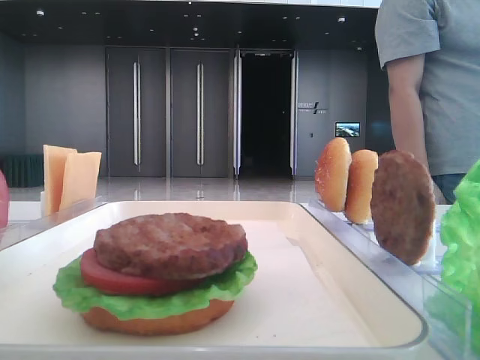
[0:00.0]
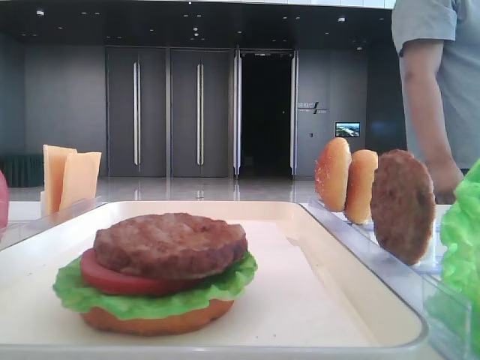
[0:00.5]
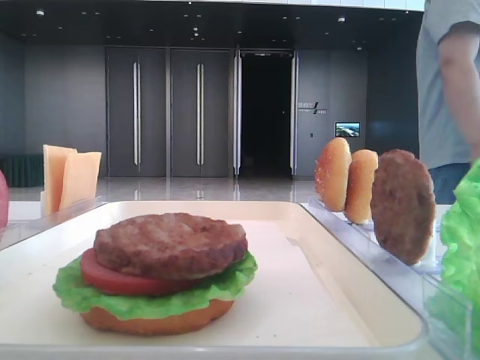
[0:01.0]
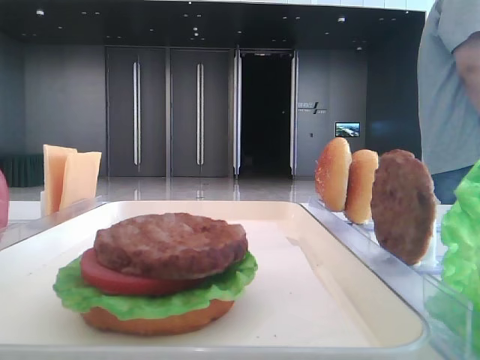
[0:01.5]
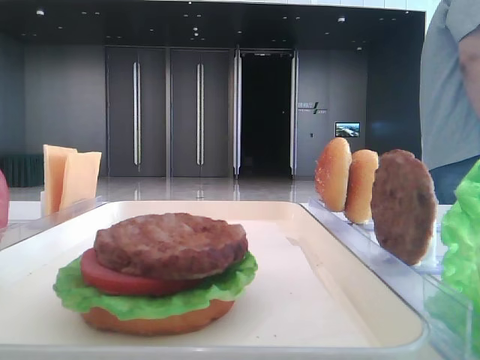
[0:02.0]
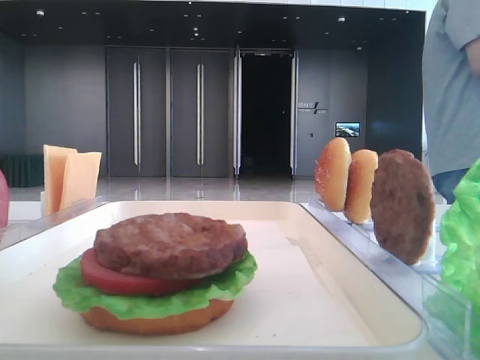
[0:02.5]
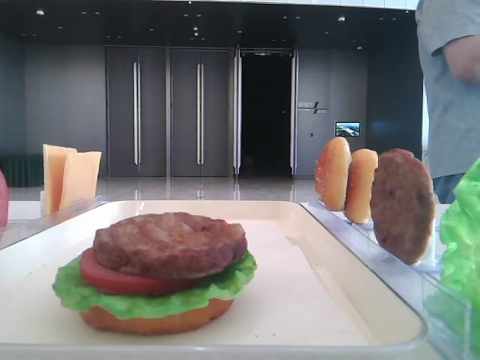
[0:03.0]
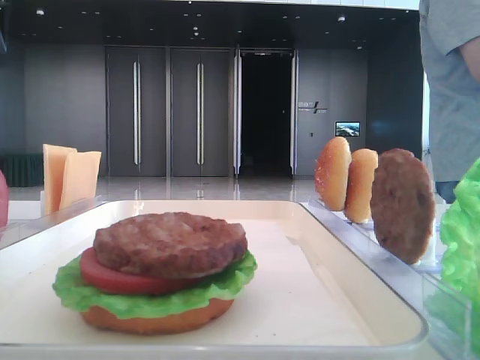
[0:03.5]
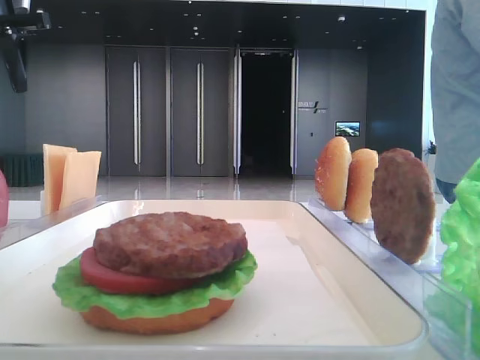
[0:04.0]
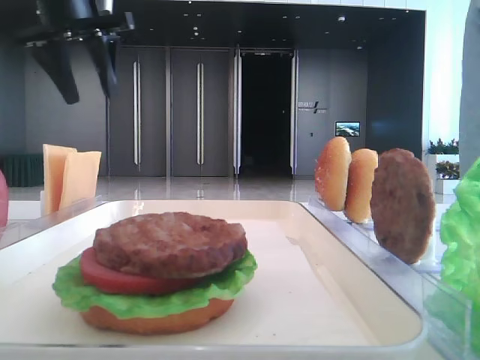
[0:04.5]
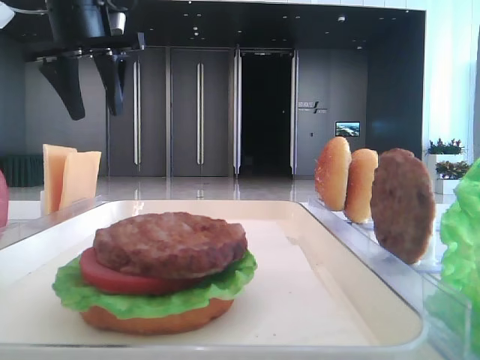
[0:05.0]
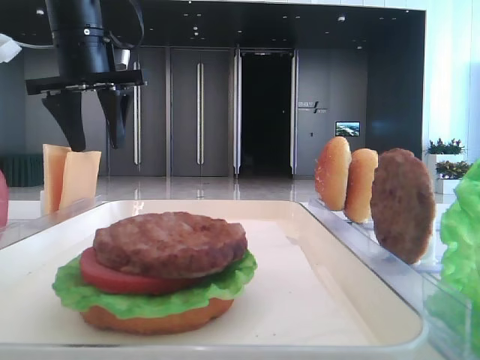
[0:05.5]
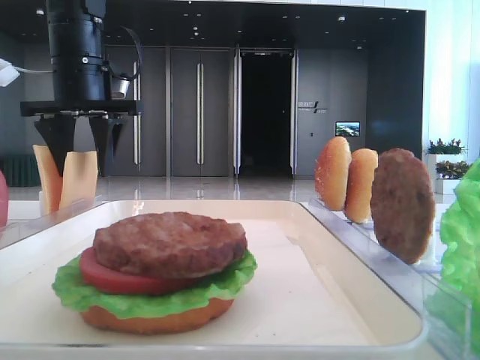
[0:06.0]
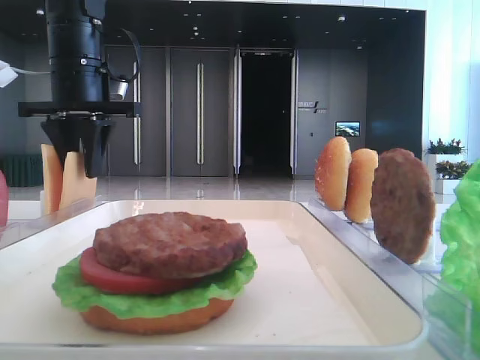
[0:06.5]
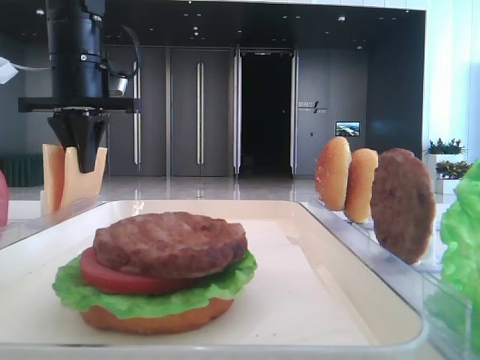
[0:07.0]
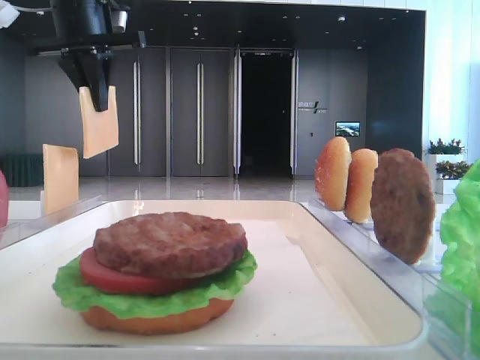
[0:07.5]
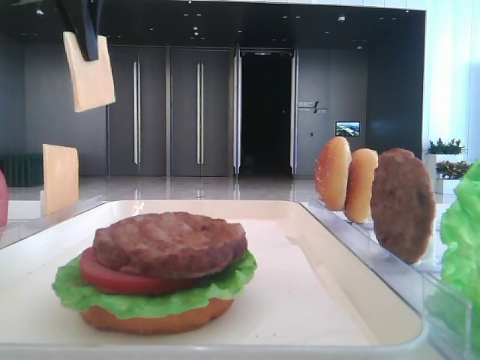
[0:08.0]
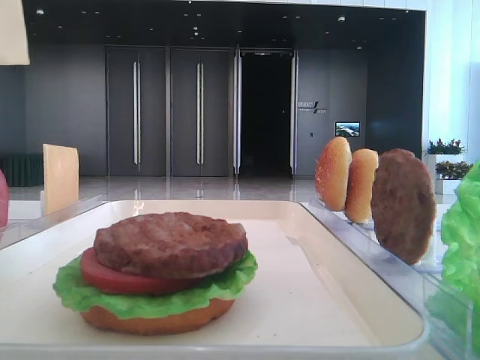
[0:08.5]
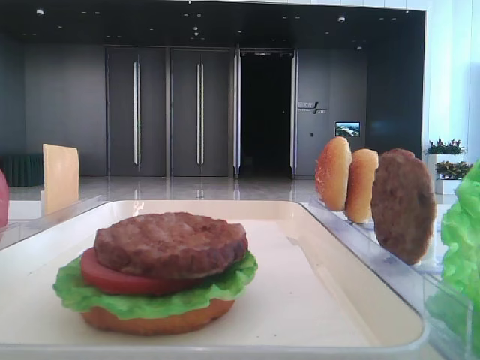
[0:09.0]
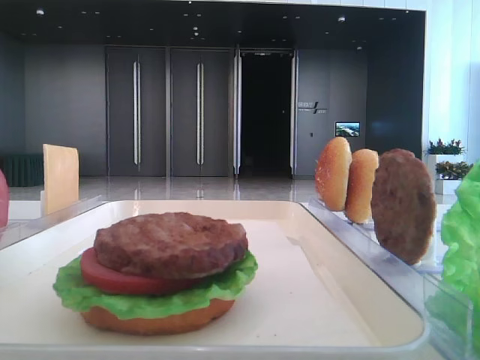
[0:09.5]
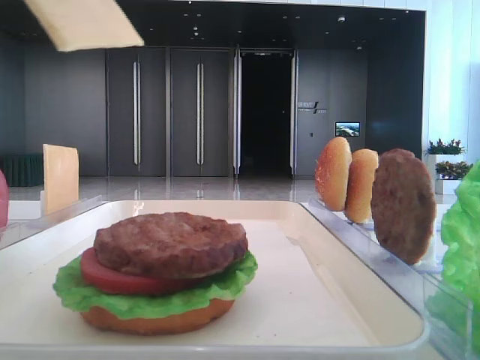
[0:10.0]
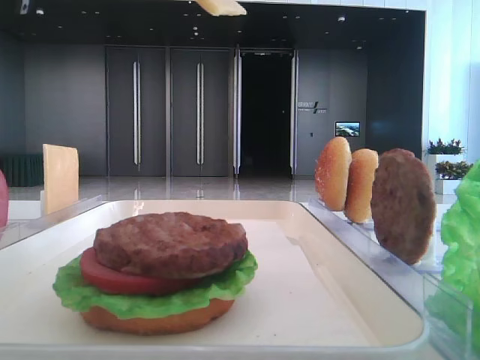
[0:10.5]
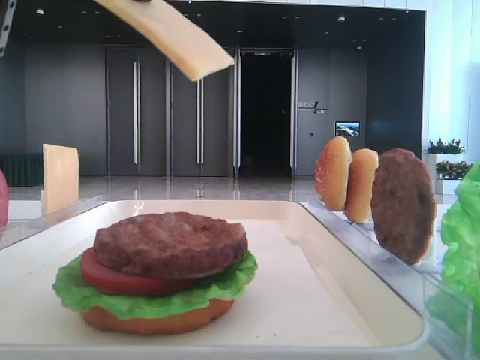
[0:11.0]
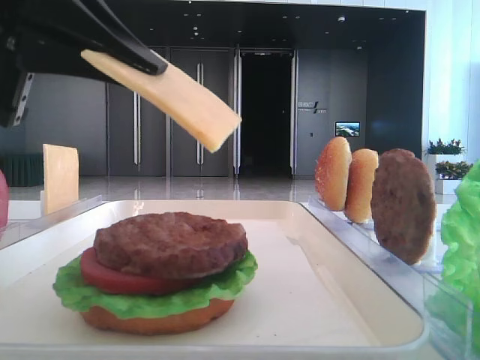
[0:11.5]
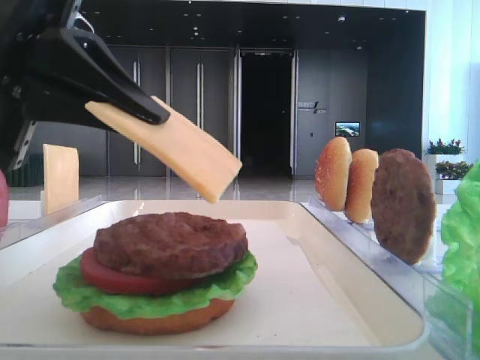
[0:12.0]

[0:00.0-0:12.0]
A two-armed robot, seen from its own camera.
Step, 0:00.0 to 0:06.5: Pick up the cheese slice with the left hand.
0:02.0 to 0:04.0: The left gripper shifts roughly 40 cm forward.
0:04.0 to 0:06.0: The left gripper goes about 15 cm to the right and downward.
0:06.0 to 0:08.0: The left gripper goes some 10 cm upward, and closes up.
0:08.0 to 0:10.0: The left gripper travels backward by about 20 cm.
0:10.0 to 0:12.0: The left gripper heads downward, covering some 10 cm.

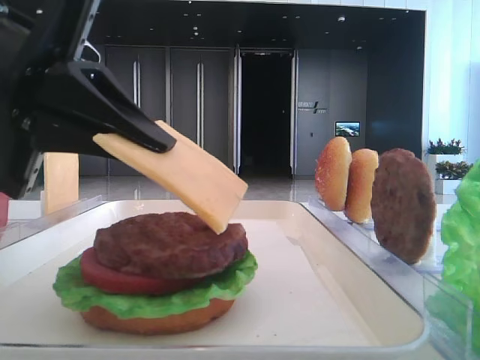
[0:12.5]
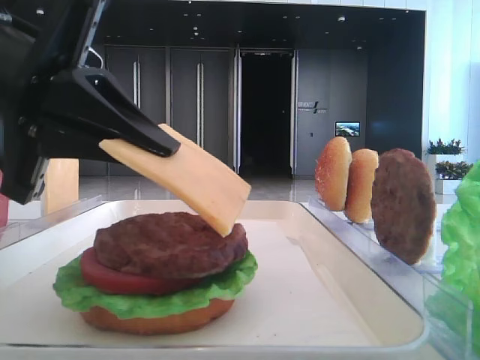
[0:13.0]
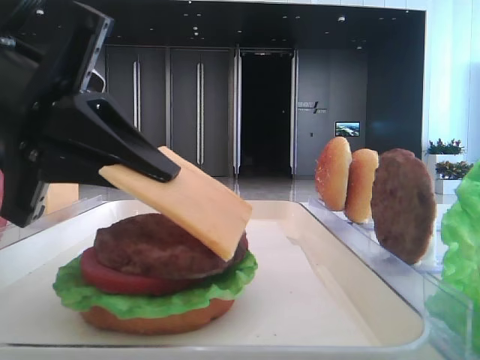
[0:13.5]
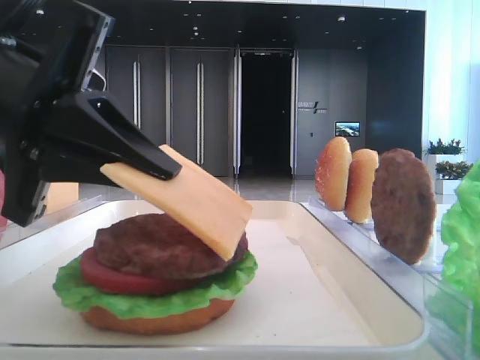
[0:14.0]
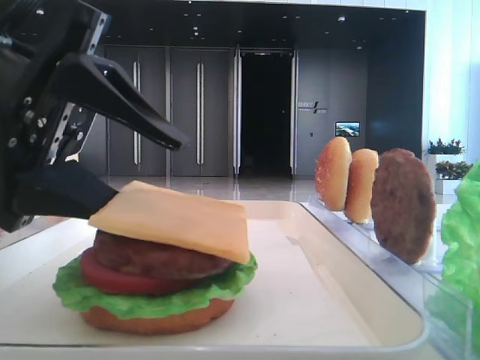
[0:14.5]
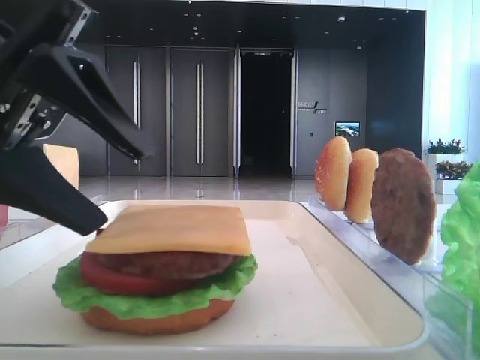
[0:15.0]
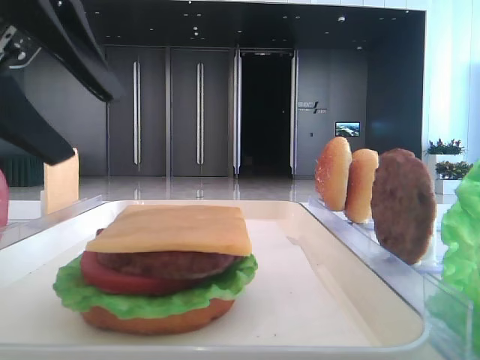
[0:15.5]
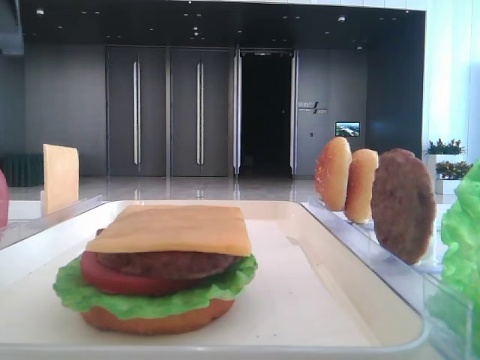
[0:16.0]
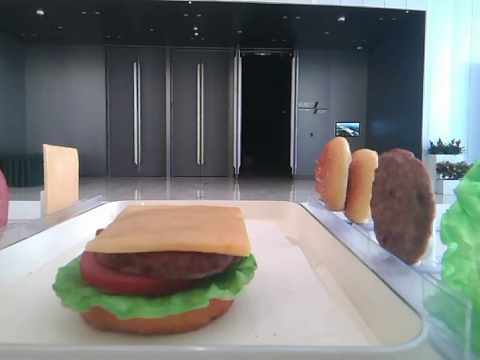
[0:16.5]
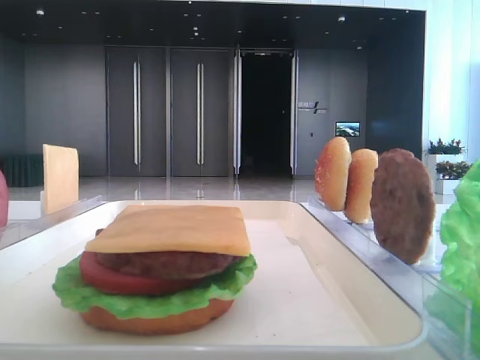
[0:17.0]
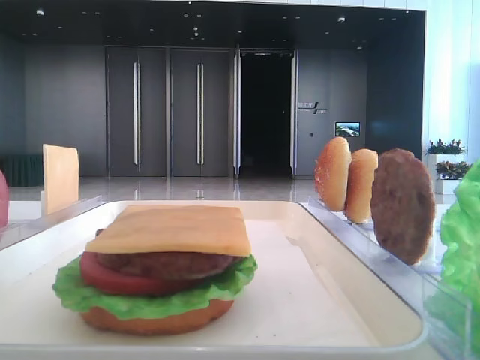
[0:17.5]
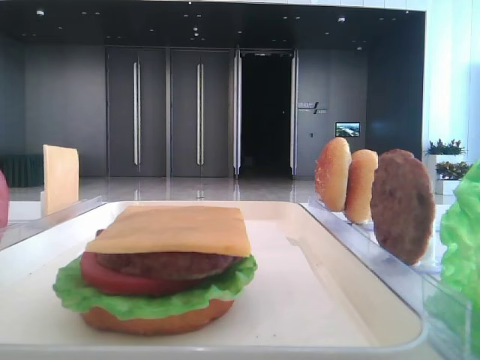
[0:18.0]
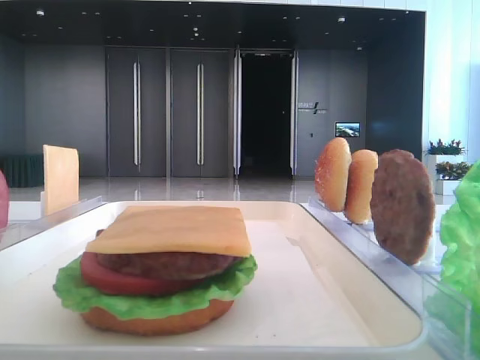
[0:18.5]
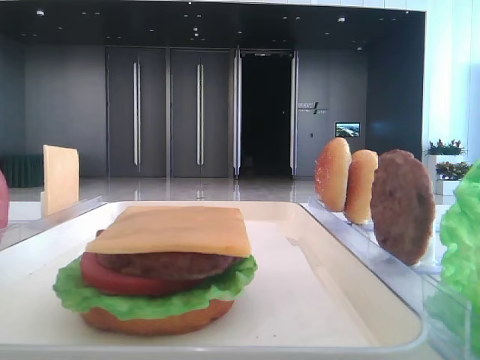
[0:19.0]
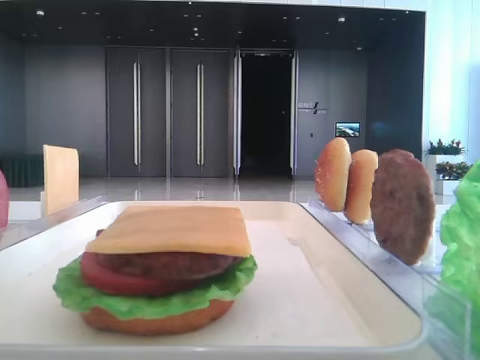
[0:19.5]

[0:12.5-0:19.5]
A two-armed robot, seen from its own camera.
Step, 0:12.5 to 0:14.5: Place the cheese slice on the patty with the left hand.
0:12.5 to 0:14.5: The left gripper opens.
0:14.5 to 0:16.0: The left gripper shifts roughly 15 cm upward.

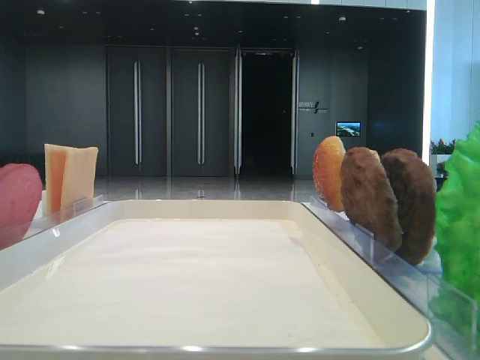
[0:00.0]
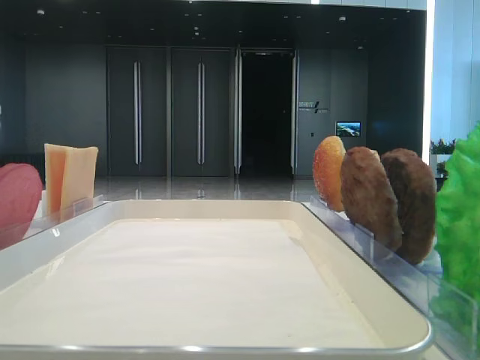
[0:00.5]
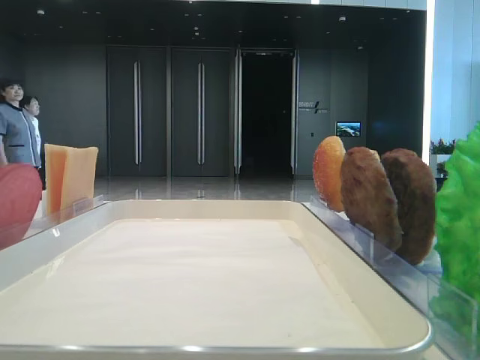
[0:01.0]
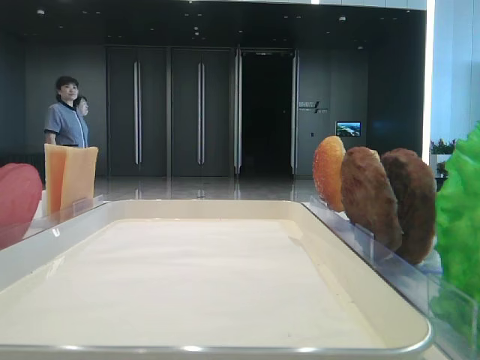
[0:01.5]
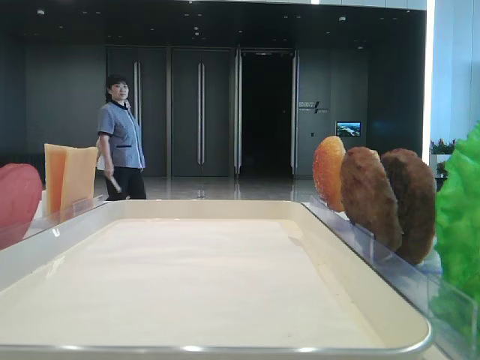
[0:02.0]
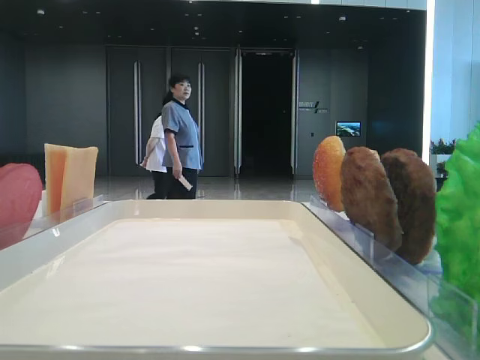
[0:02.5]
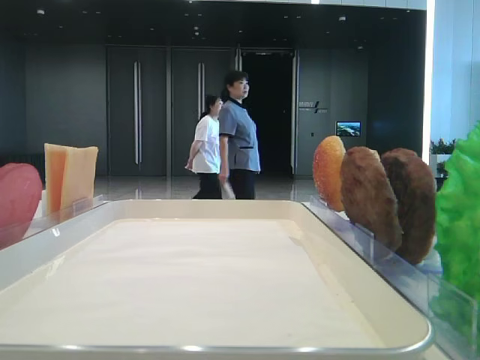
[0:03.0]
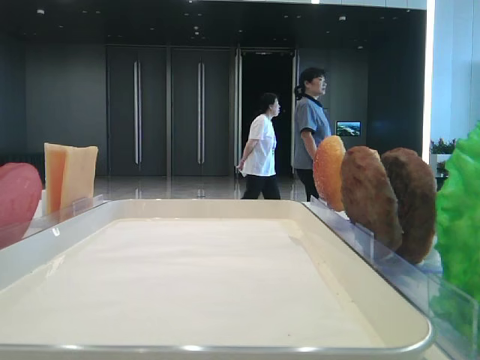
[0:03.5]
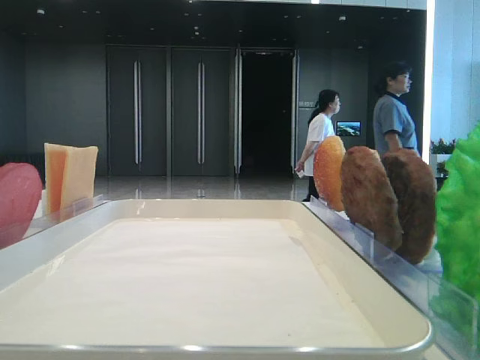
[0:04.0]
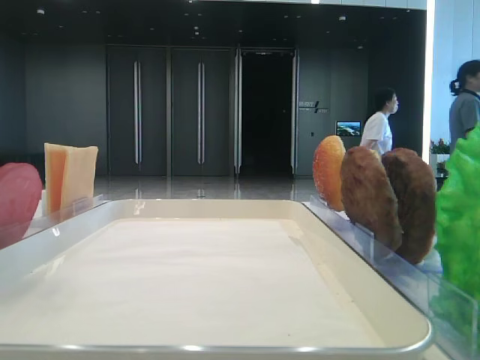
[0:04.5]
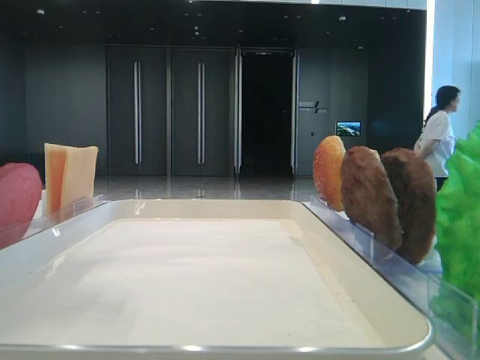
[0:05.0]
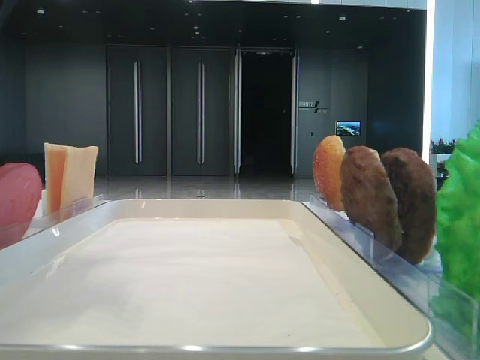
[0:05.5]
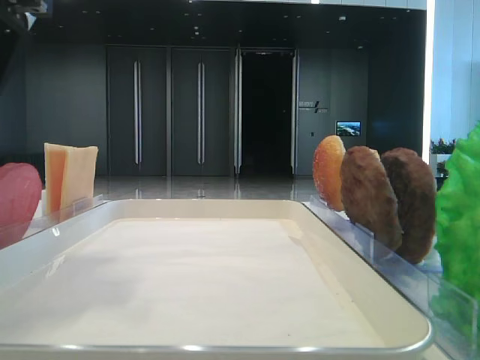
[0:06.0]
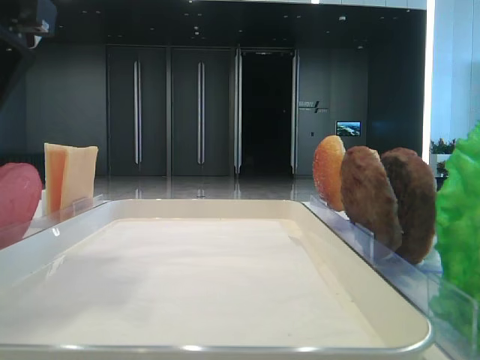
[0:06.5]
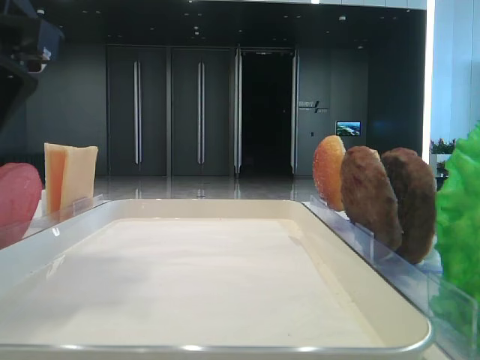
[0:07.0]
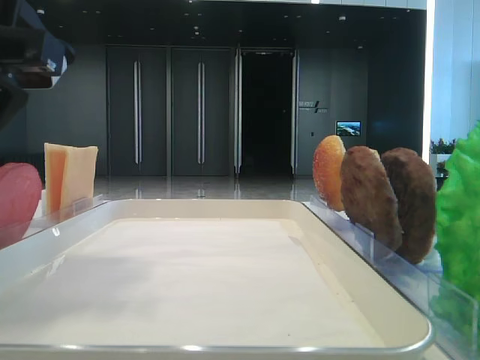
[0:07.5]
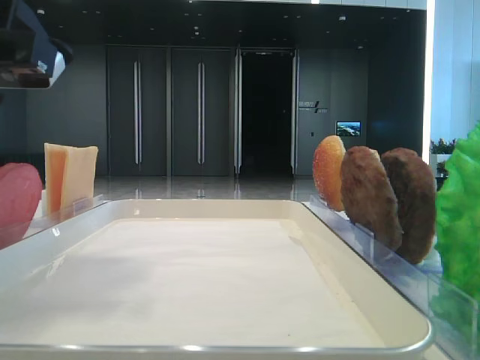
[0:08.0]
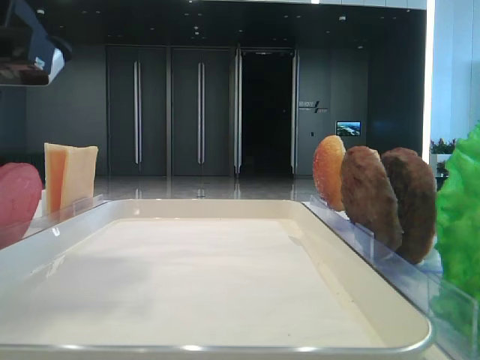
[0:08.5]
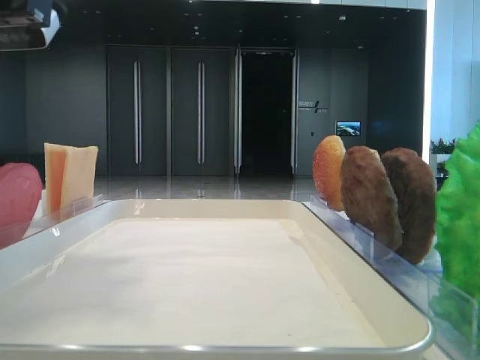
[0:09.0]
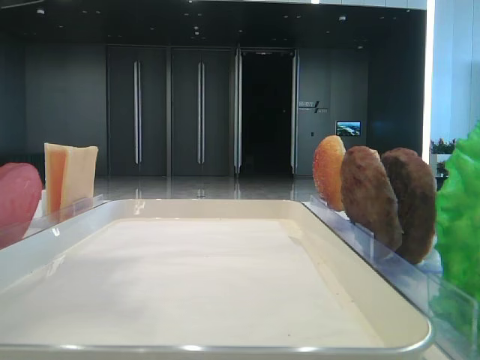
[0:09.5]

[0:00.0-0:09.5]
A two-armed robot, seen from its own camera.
Step, 0:00.0 to 0:08.0: Pick up the bottom bread with the left hand.
0:02.0 to 0:04.0: The left gripper travels forward by about 25 cm.
0:04.0 to 0:05.5: The left gripper is displaced to the right by roughly 15 cm.
0:05.5 to 0:07.5: The left gripper shifts some 5 cm downward.
0:07.5 to 0:09.5: The left gripper heads upward, covering about 5 cm, and closes its fingers.
